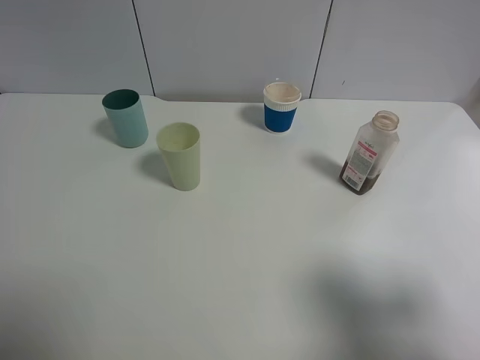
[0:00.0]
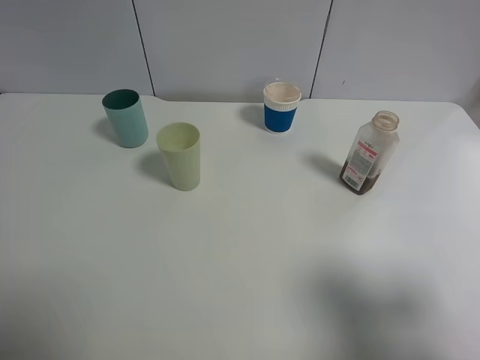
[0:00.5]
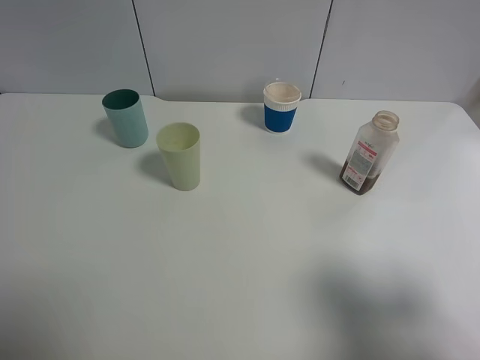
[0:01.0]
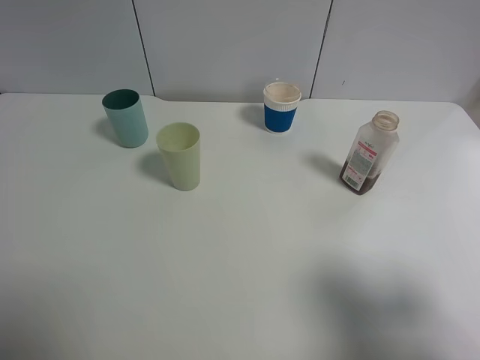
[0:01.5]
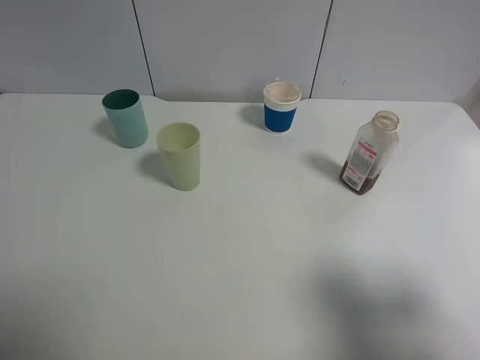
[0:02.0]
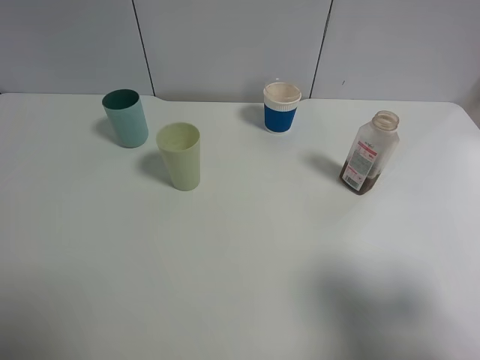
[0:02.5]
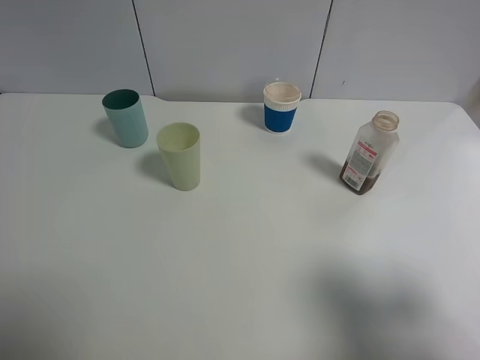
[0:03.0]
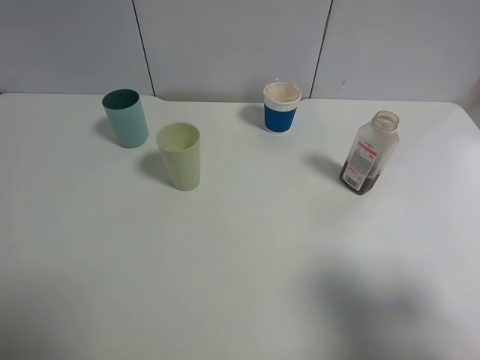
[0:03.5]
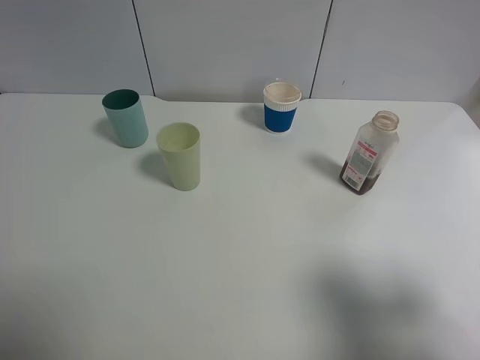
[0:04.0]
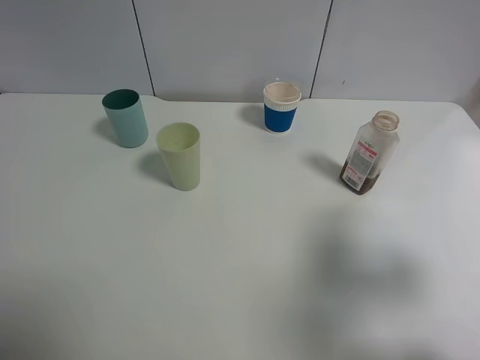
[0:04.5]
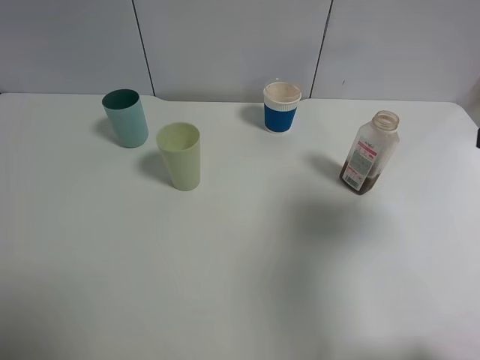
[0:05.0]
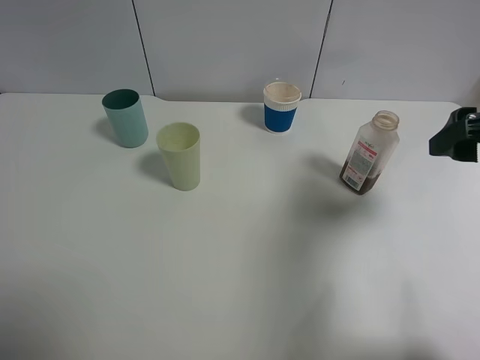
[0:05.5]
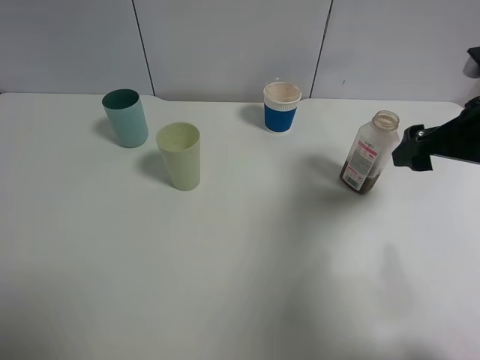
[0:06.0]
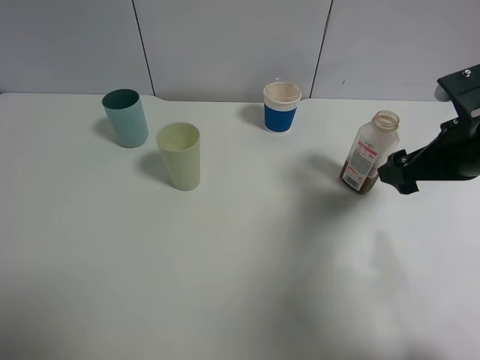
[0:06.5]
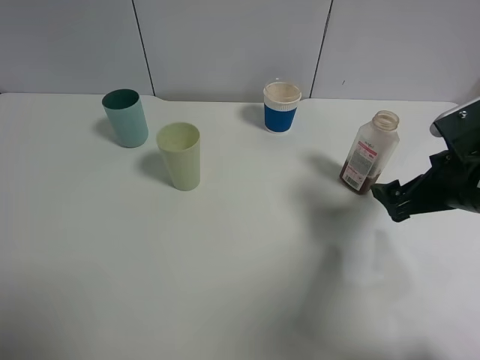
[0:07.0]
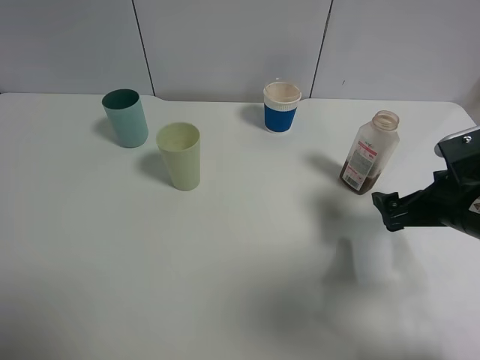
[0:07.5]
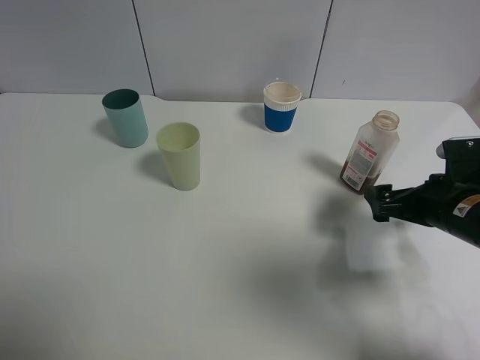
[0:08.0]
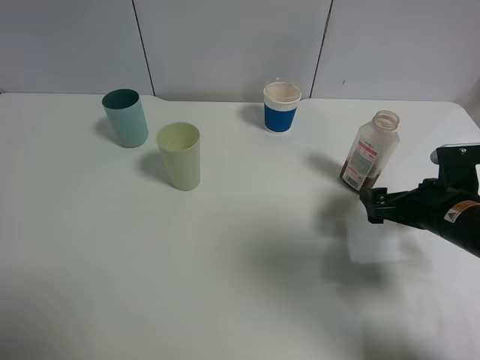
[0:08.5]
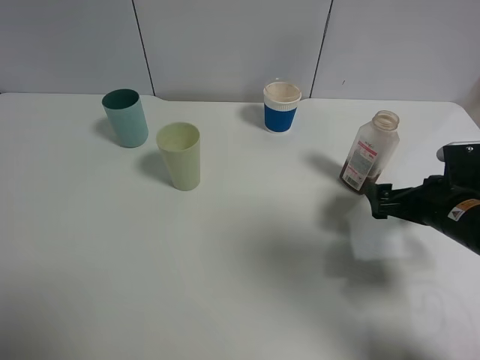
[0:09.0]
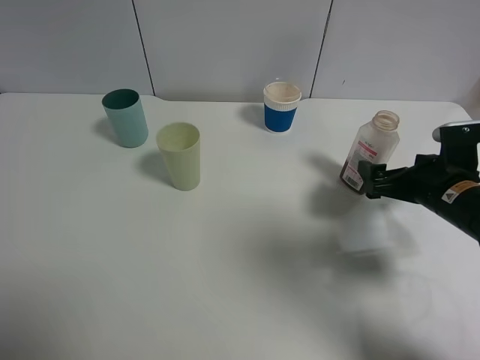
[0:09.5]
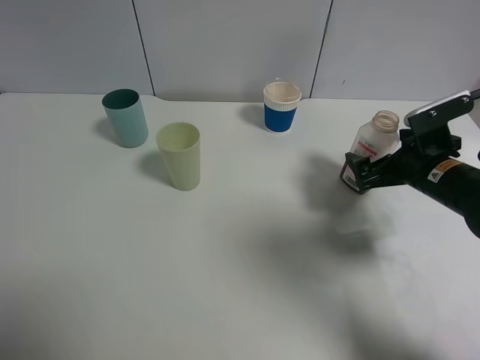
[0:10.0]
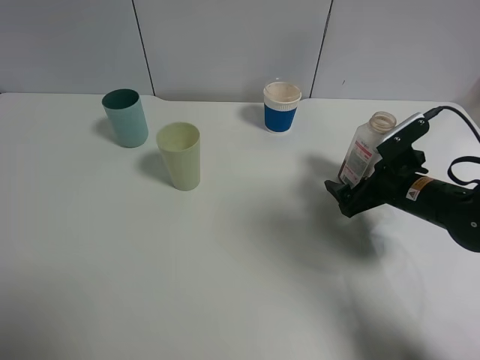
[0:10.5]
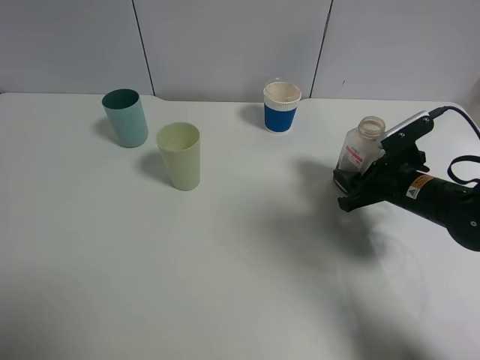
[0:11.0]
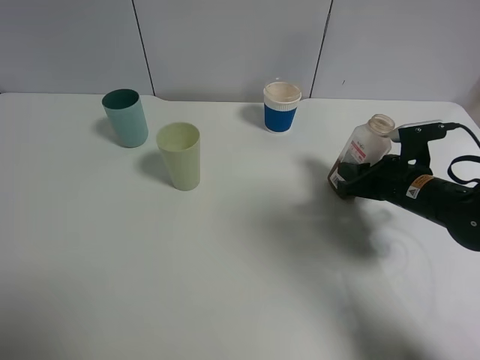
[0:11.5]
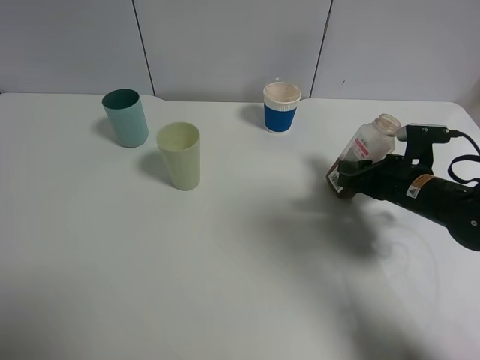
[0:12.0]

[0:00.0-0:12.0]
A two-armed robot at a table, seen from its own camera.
Task of the whole recording: use a gripper to hold the bottle of the drink and pour it into a random cup.
Step, 0:00.0 to 0:11.0: Grasp the cranberry juice bottle with the right gripper.
0:00.0 to 0:04.0: Both grippers stay put.
0:04.0 to 0:06.0: The right gripper shifts about 25 cm forward.
0:06.0 to 0:08.0: The right gripper shifts some 10 cm downward.
0:08.0 to 0:10.0: The right gripper shifts approximately 5 cm forward.
0:10.0 to 0:12.0: The right gripper closes.

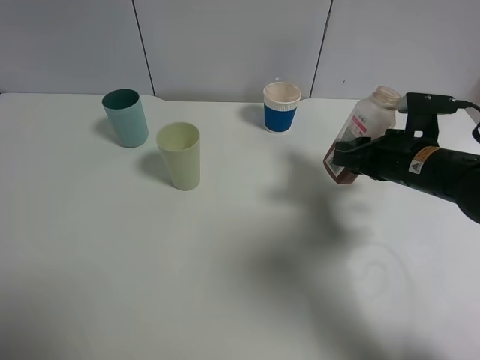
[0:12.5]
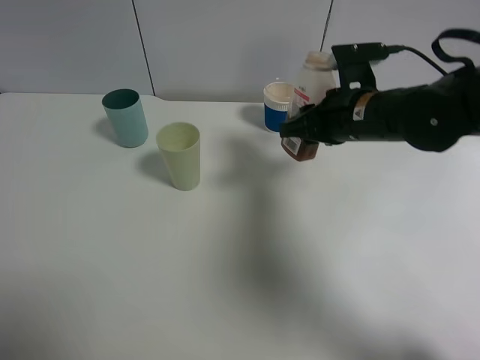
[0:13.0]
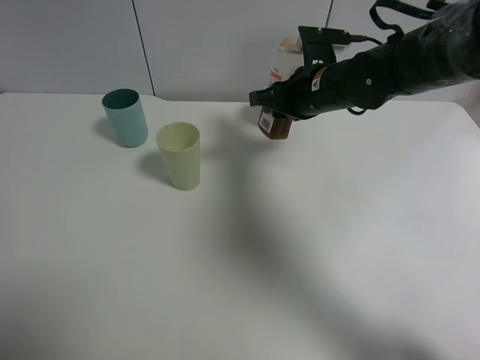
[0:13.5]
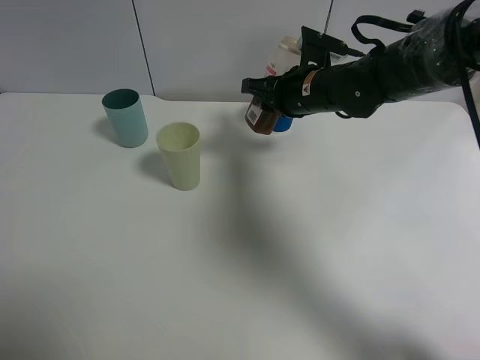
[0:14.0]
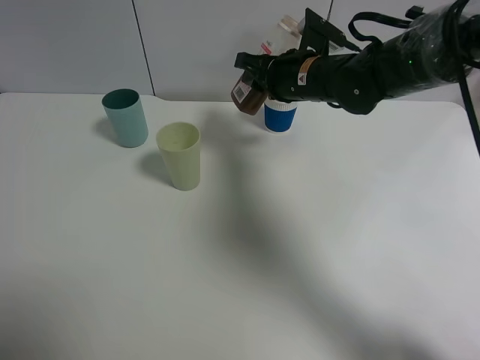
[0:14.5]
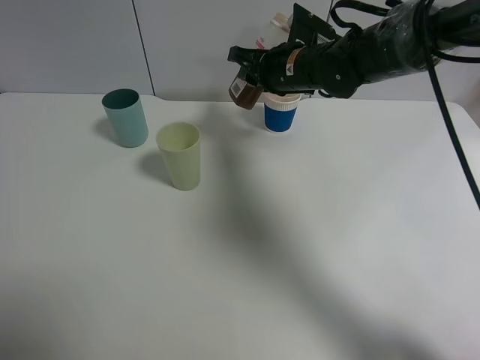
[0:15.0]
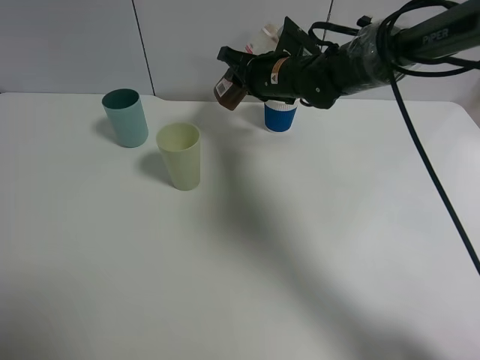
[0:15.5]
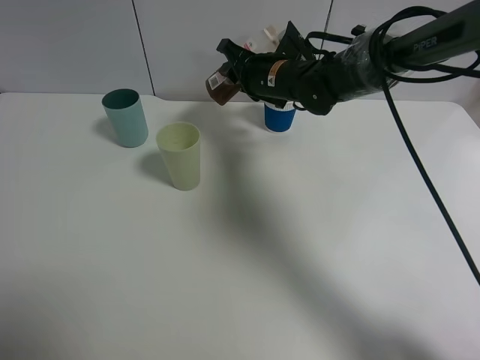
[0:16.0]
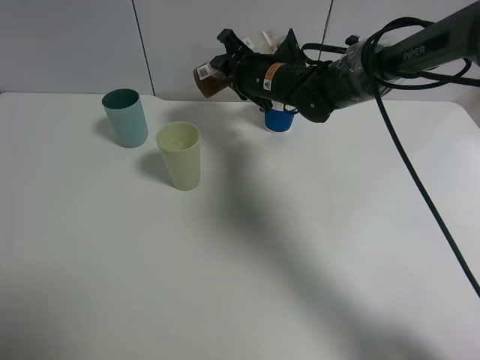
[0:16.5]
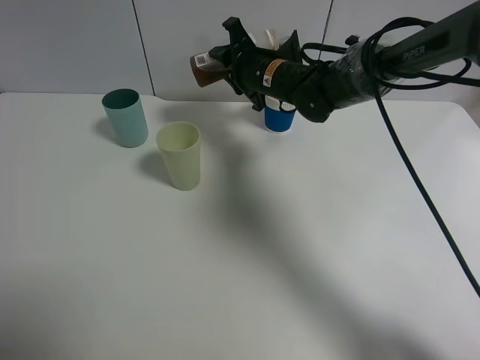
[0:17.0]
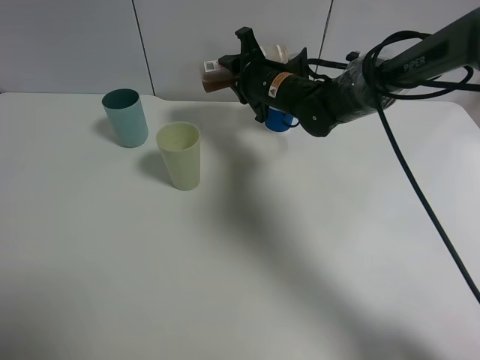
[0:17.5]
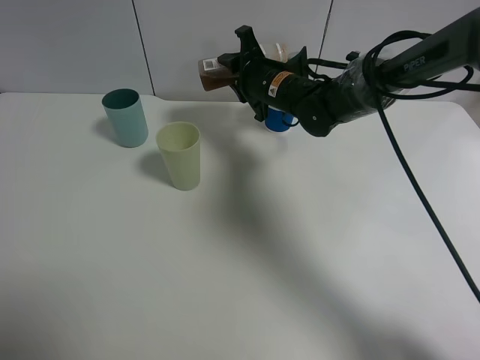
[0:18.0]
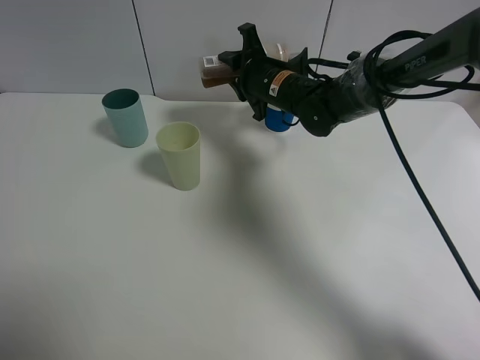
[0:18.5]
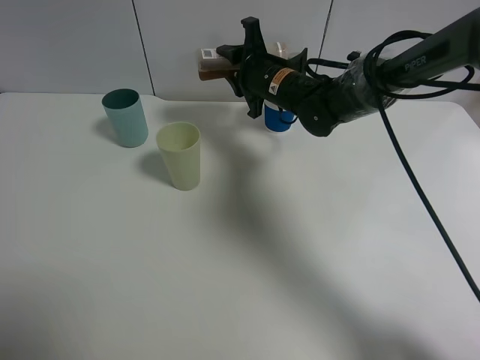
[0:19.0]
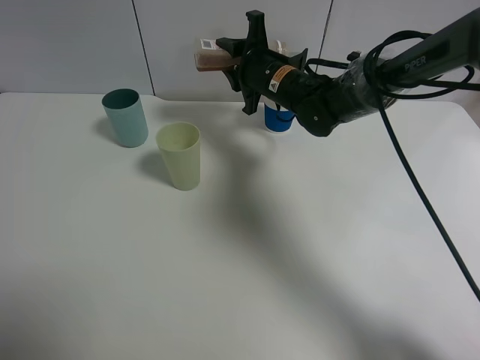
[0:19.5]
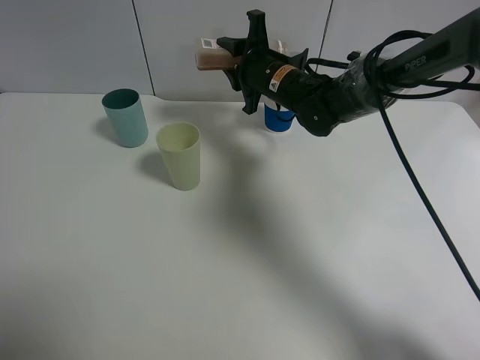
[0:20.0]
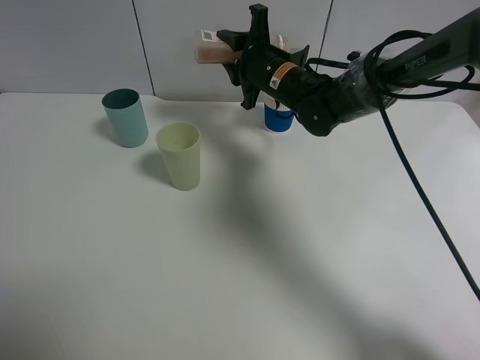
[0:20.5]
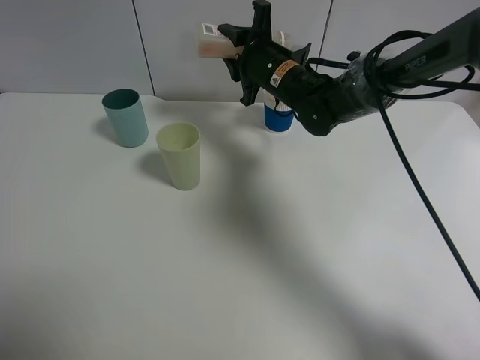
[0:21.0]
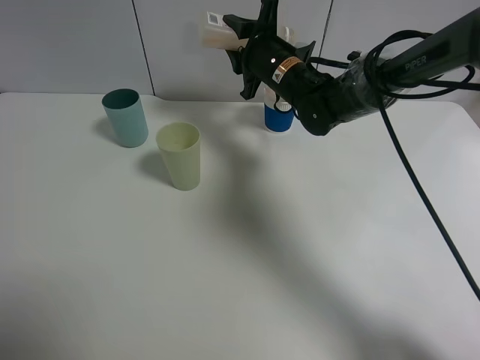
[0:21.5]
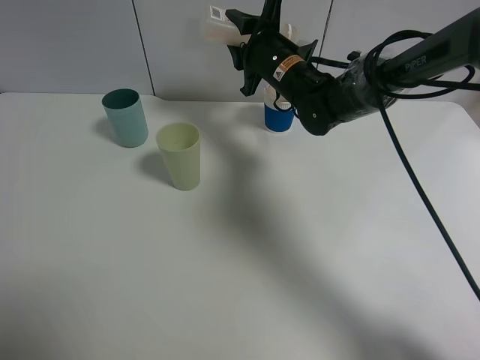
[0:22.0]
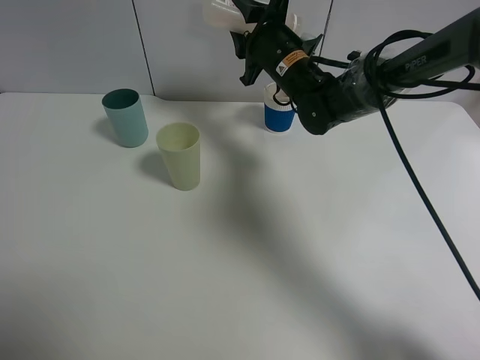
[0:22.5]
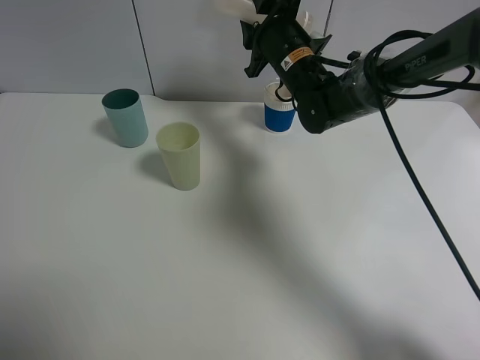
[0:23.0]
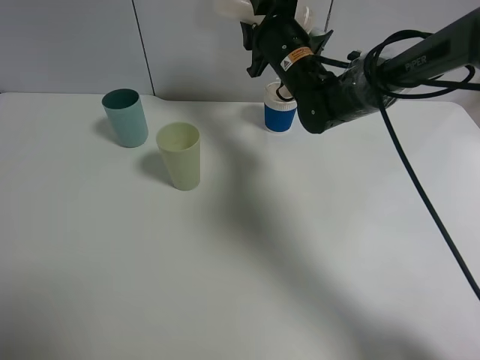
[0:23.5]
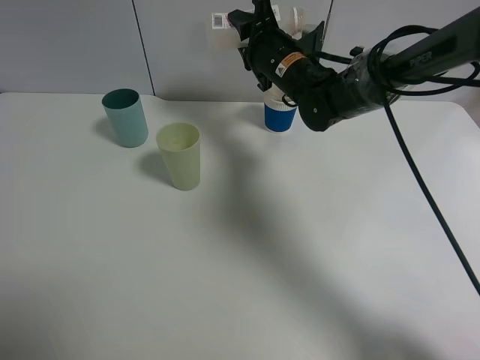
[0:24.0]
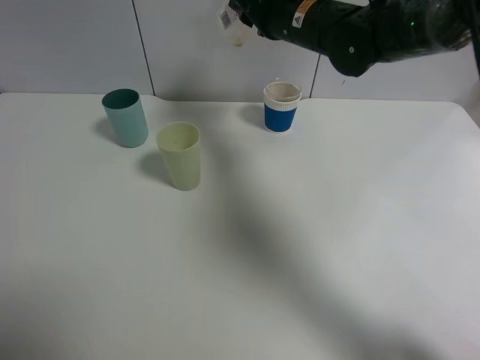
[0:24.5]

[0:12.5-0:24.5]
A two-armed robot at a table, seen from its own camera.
Task of the whole recording: use a gripper to hold the bottle of the drink and pour it into a random cup.
Step, 0:12.5 to 0:24.0: Pour the cranberry juice into the paper cup with the right gripper.
0:12.5 to 0:14.5: The right gripper travels to the left and forward by some 15 cm.
0:14.5 to 0:16.5: The right gripper shifts by approximately 5 cm.
0:16.5 to 0:18.5: There are only small adjustments of the grippers.
0:18.5 to 0:20.5: There are only small adjustments of the grippers.
0:20.5 to 0:22.5: There are only small adjustments of the grippers.
0:22.5 to 0:24.5: The right gripper is displaced upward by approximately 5 cm.

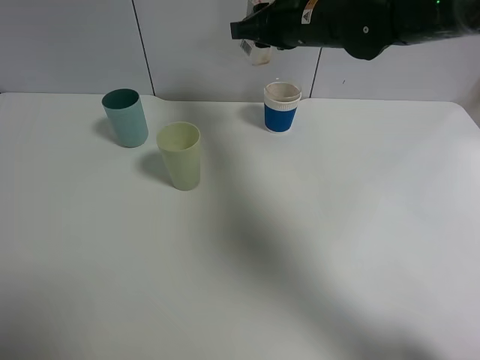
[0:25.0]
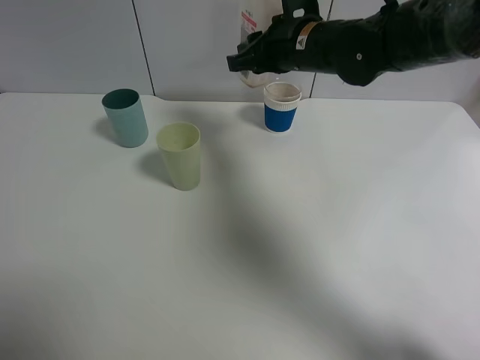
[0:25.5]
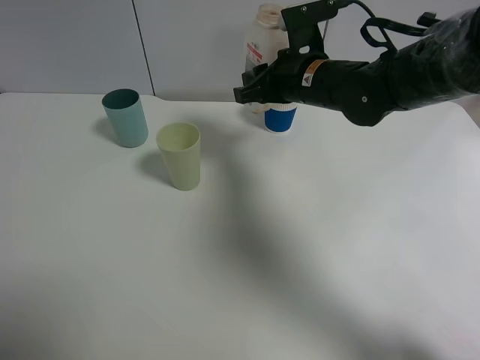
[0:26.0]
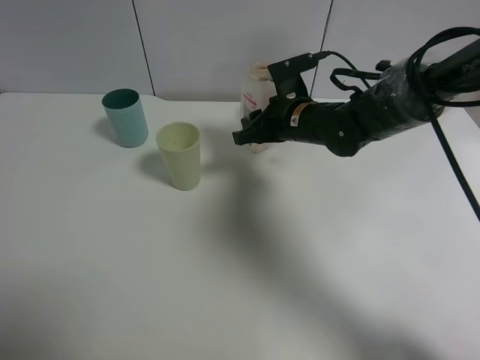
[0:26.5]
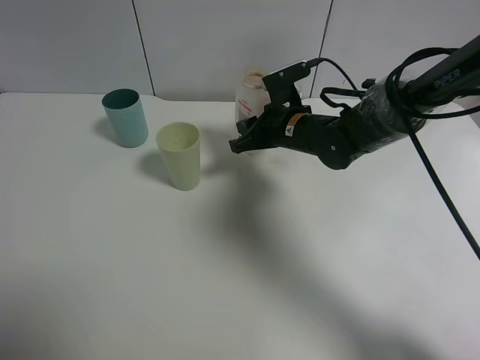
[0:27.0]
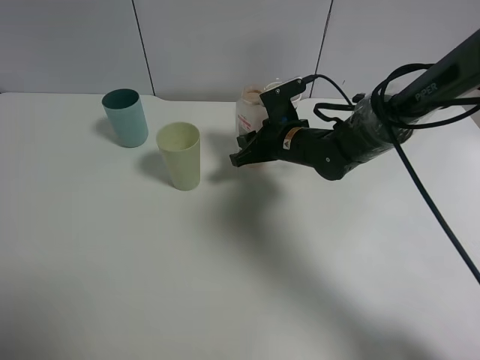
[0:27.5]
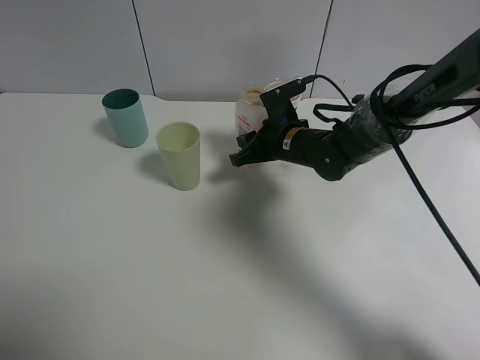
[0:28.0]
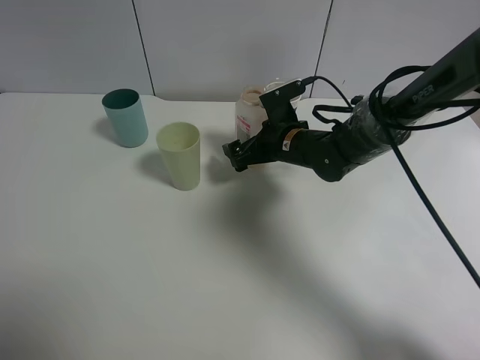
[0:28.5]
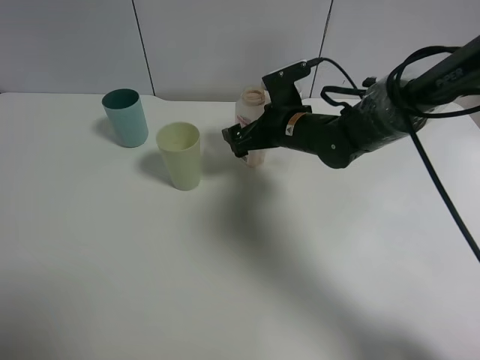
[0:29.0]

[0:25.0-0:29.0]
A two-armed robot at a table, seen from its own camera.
Task of the whole recording: use a gripper to hold the bottle of the drink and pour it into a random cup.
Step, 0:25.0 to 0:28.5: Place the cranberry juice bottle on the table with the right gripper.
0:25.0 to 0:27.0: The right gripper travels downward by some 15 cm.
0:27.0 to 0:29.0: The right gripper opens up.
